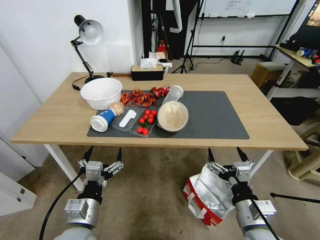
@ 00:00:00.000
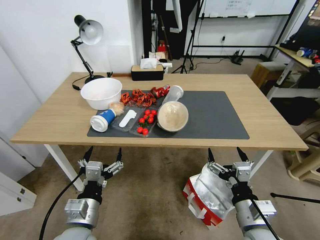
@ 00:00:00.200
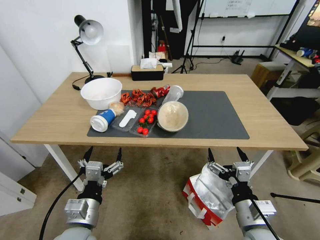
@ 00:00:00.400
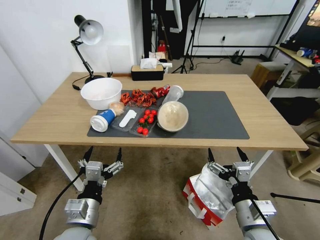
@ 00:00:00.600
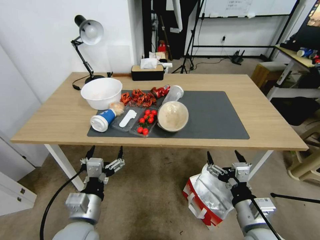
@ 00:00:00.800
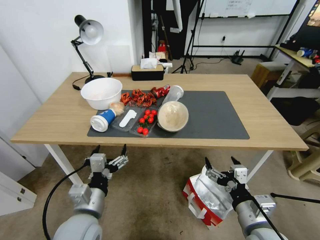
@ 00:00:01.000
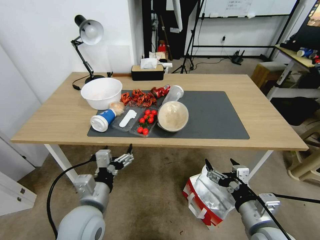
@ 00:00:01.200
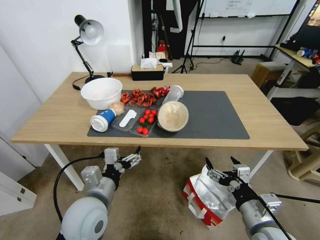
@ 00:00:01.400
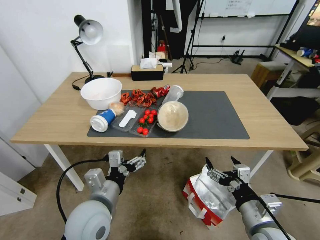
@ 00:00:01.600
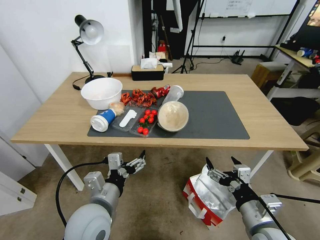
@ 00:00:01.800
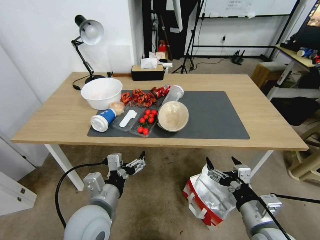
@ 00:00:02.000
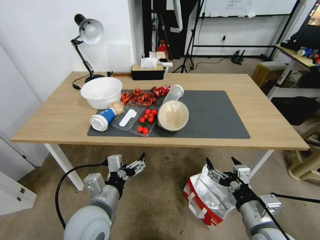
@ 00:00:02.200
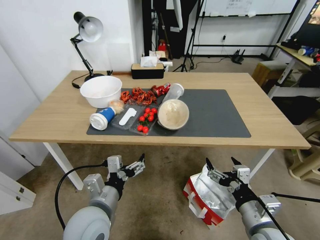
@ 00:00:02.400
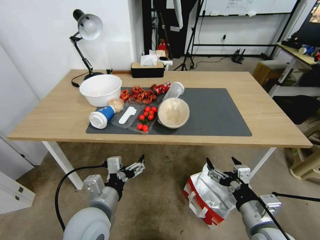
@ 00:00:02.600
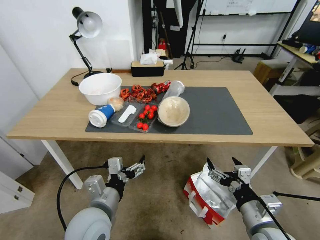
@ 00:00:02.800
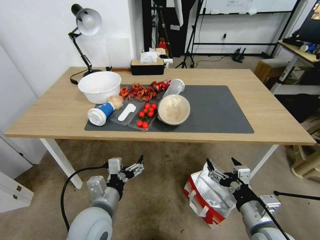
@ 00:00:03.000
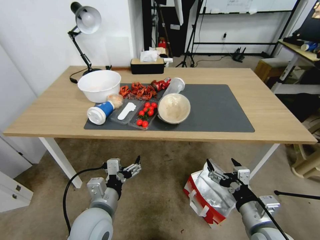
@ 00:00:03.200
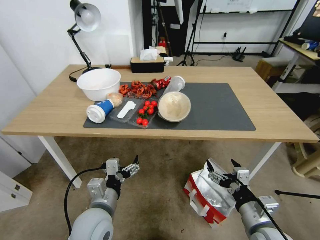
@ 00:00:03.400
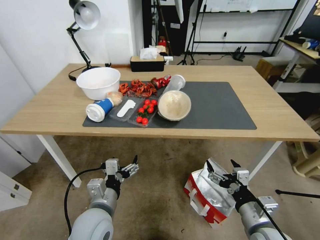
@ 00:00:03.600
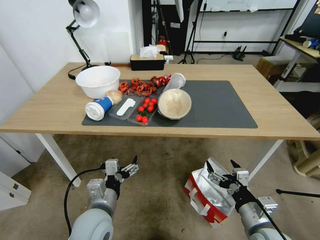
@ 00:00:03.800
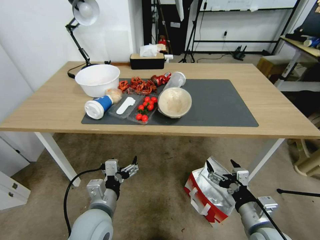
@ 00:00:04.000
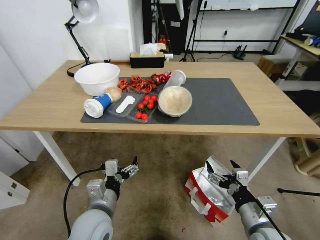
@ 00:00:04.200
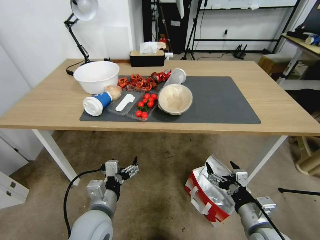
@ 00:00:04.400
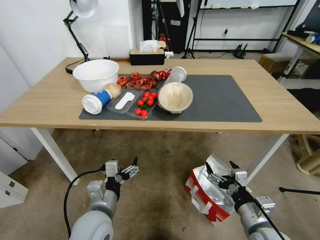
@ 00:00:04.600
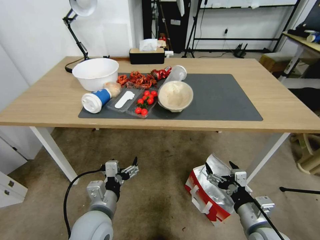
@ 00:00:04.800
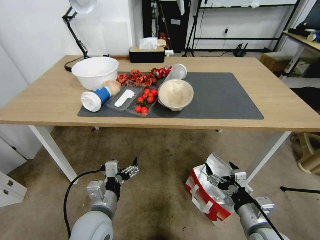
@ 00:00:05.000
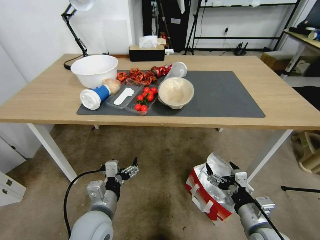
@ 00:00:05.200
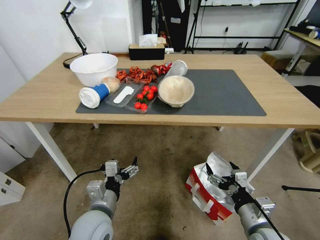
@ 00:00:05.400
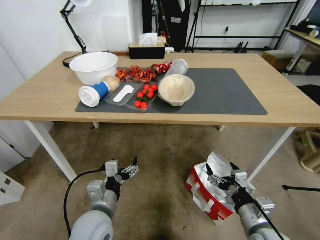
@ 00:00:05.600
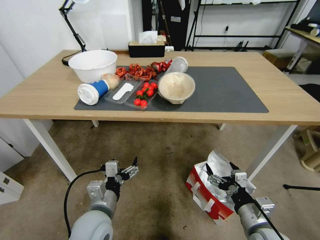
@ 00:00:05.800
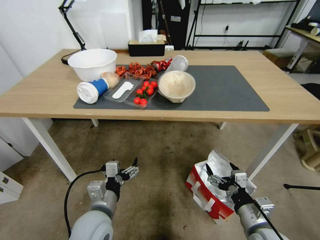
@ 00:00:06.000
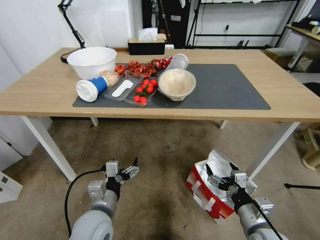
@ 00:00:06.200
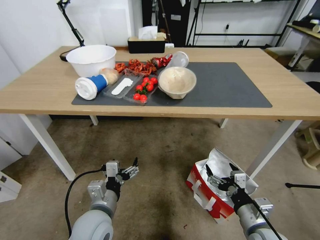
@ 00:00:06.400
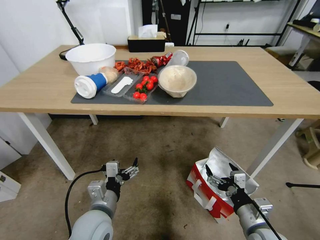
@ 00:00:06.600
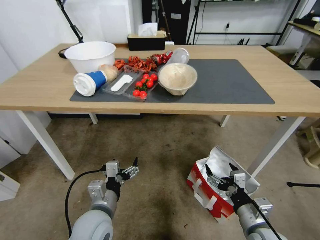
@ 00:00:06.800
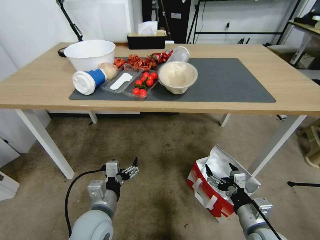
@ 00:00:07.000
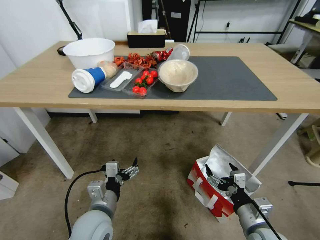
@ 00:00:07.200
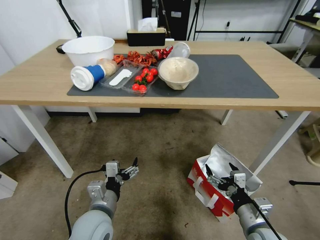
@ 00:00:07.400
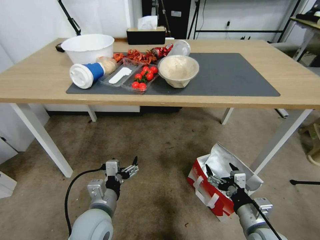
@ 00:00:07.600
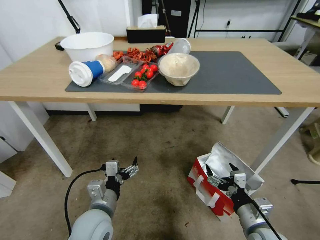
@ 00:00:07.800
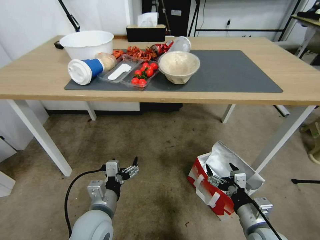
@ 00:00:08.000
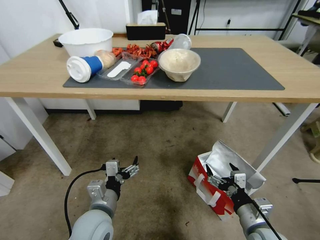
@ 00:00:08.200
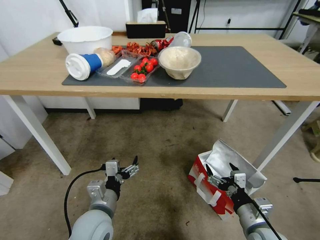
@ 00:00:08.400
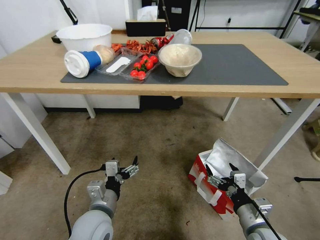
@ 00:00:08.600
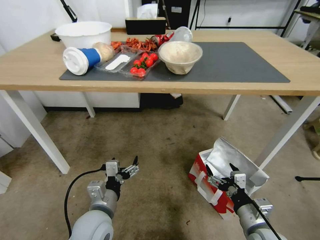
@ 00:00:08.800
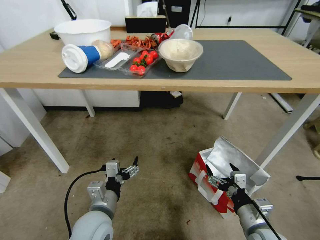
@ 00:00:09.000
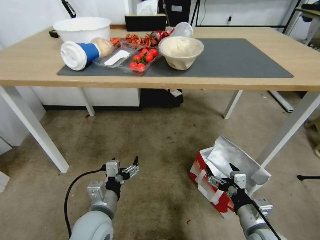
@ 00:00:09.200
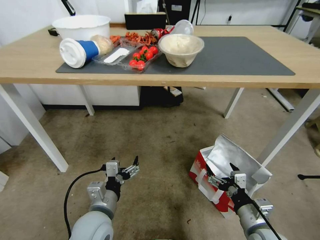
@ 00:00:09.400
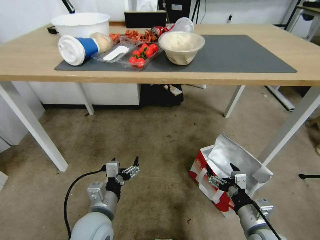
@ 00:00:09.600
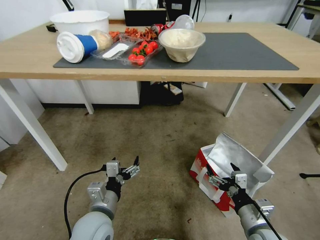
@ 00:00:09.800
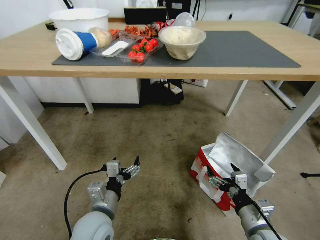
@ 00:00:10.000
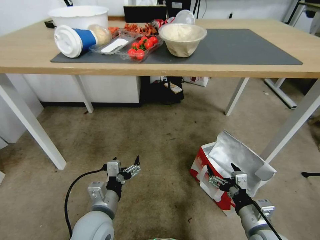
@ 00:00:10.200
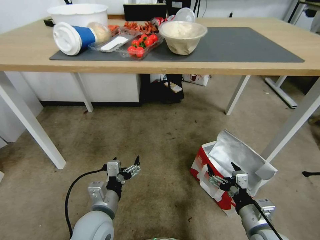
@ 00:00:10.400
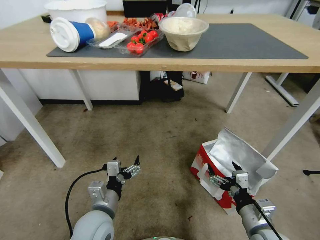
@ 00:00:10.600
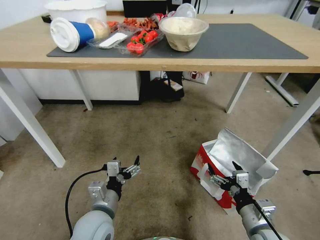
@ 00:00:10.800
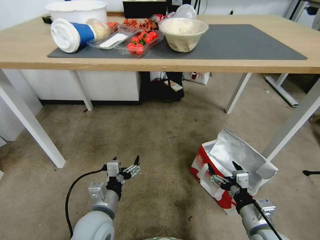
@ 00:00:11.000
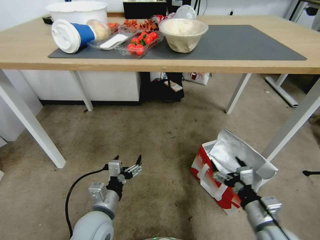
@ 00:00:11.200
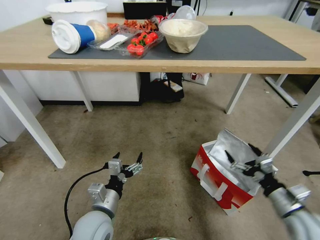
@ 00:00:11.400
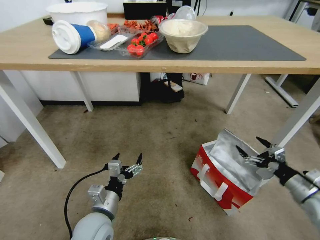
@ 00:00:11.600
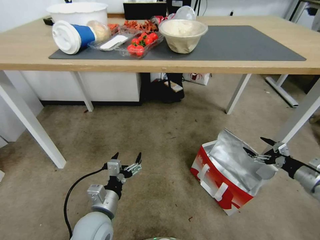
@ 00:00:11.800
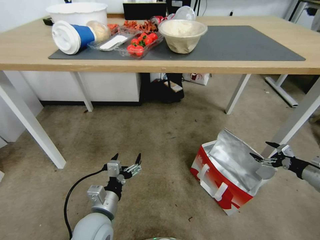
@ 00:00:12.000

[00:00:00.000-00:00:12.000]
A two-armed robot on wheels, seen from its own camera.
Task of the whole recording: Pick up the food delivery bag from the floor and place it on the table.
00:00:10.400 to 00:00:12.000: The right gripper shifts roughly 35 cm to the right and forward.

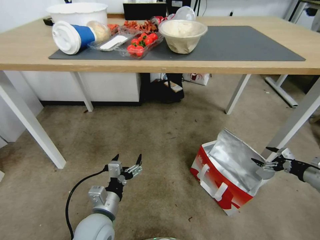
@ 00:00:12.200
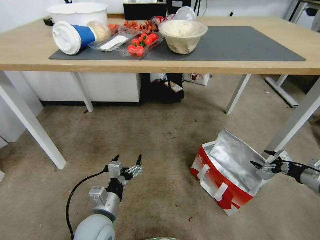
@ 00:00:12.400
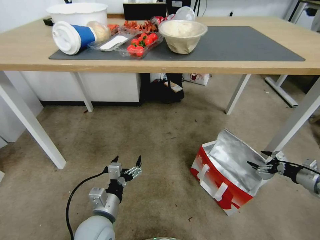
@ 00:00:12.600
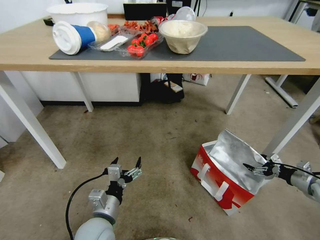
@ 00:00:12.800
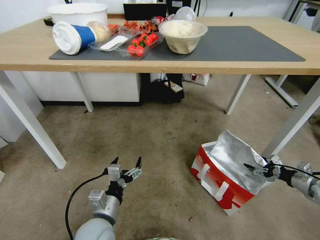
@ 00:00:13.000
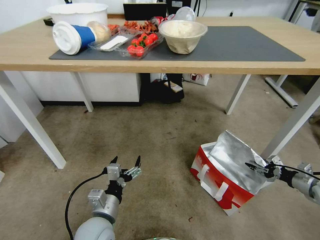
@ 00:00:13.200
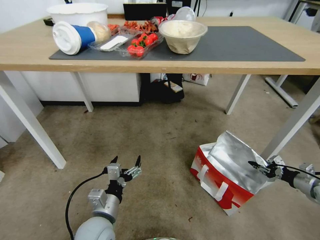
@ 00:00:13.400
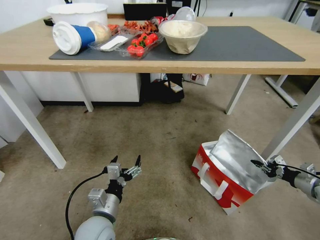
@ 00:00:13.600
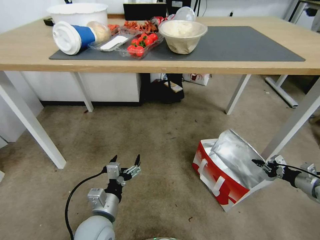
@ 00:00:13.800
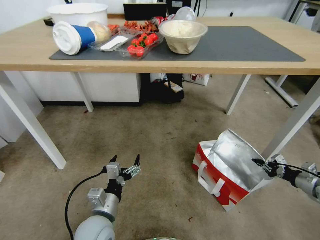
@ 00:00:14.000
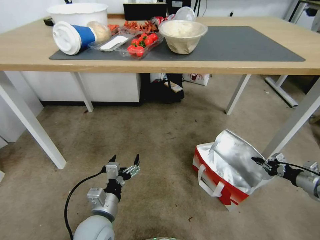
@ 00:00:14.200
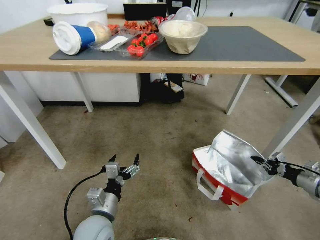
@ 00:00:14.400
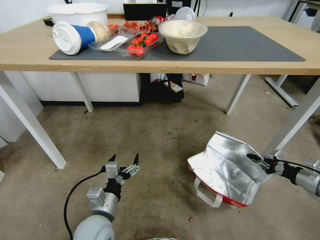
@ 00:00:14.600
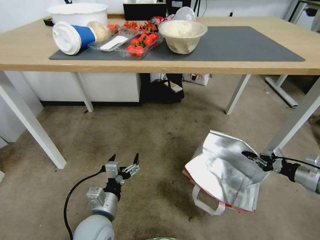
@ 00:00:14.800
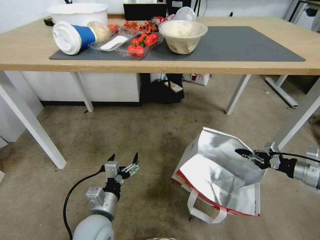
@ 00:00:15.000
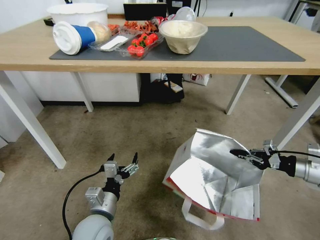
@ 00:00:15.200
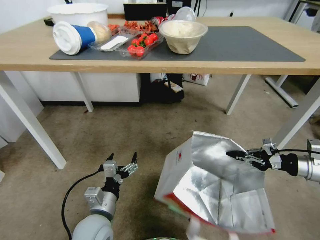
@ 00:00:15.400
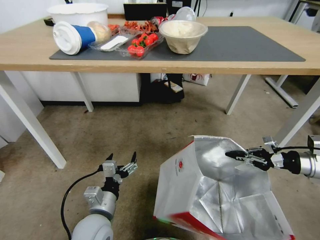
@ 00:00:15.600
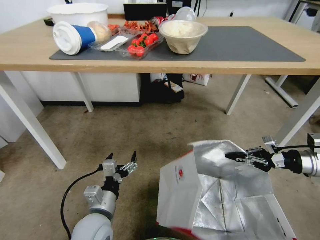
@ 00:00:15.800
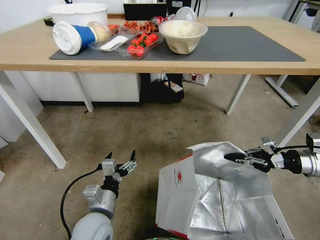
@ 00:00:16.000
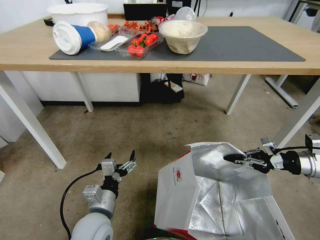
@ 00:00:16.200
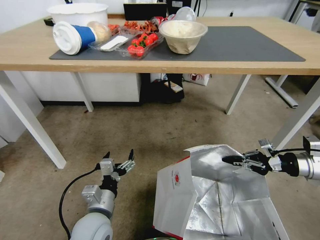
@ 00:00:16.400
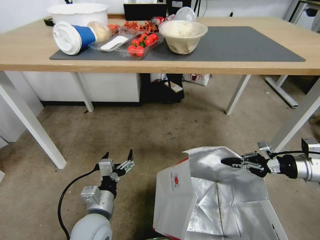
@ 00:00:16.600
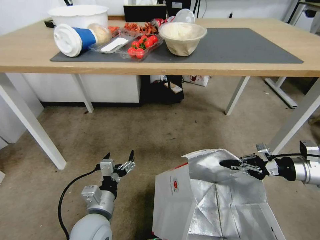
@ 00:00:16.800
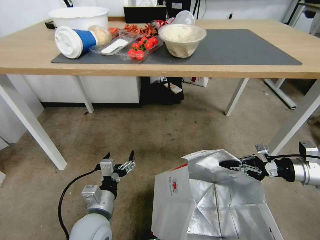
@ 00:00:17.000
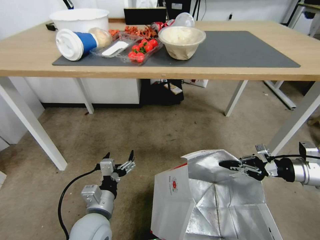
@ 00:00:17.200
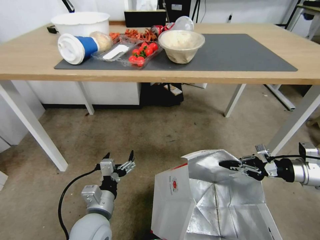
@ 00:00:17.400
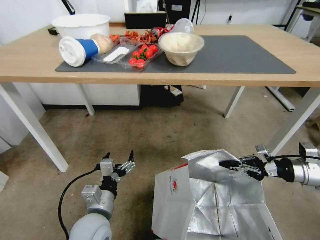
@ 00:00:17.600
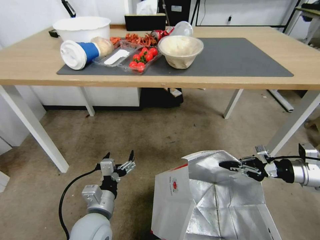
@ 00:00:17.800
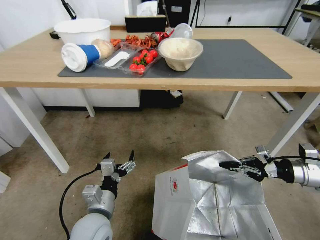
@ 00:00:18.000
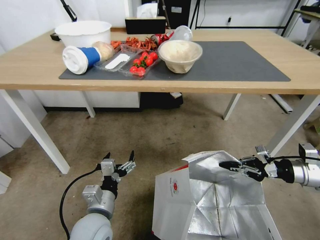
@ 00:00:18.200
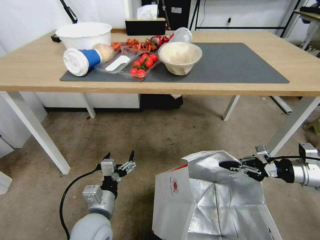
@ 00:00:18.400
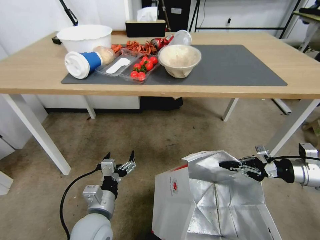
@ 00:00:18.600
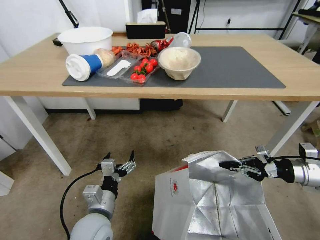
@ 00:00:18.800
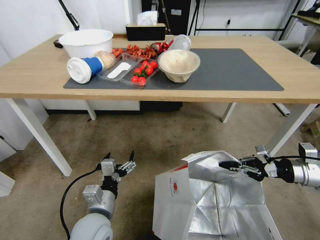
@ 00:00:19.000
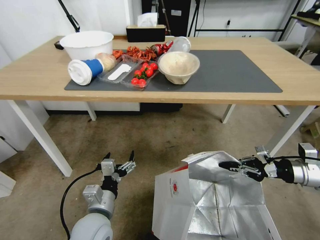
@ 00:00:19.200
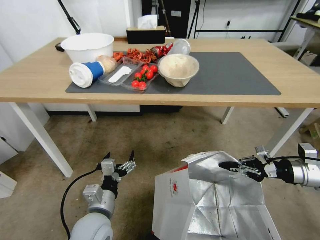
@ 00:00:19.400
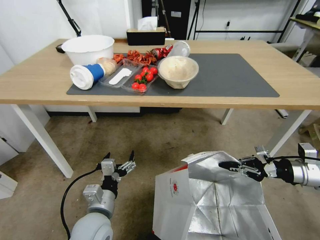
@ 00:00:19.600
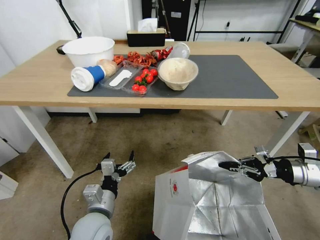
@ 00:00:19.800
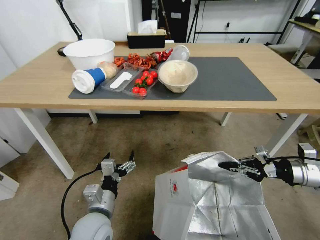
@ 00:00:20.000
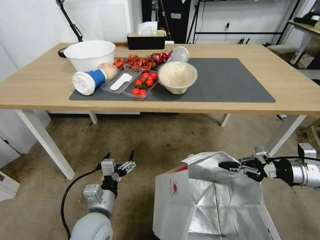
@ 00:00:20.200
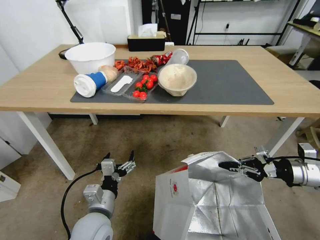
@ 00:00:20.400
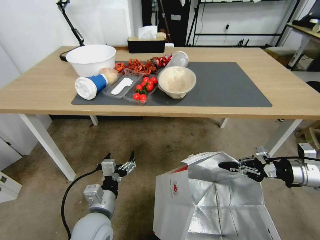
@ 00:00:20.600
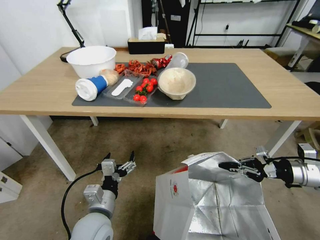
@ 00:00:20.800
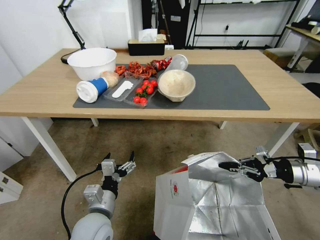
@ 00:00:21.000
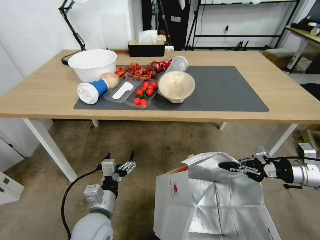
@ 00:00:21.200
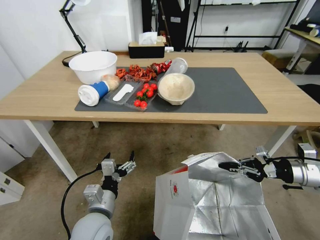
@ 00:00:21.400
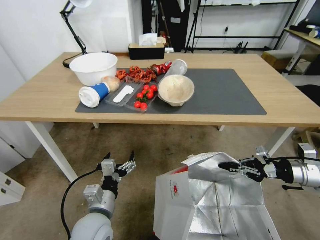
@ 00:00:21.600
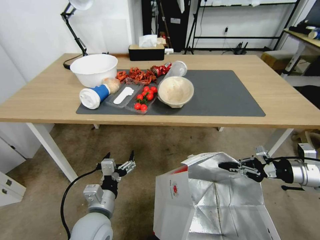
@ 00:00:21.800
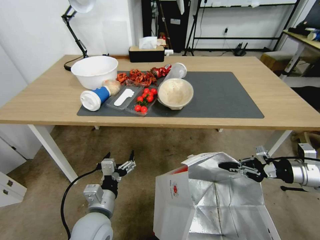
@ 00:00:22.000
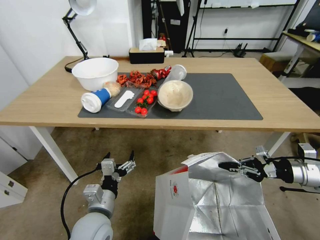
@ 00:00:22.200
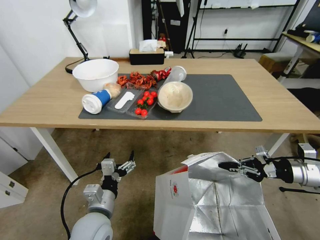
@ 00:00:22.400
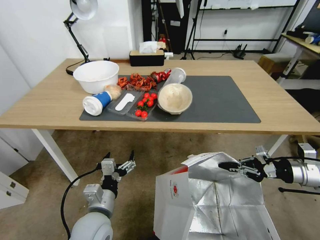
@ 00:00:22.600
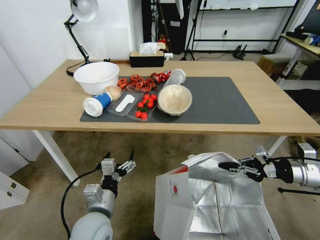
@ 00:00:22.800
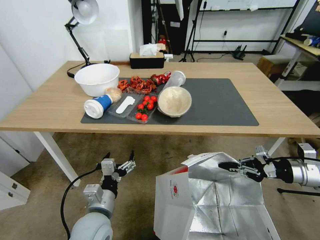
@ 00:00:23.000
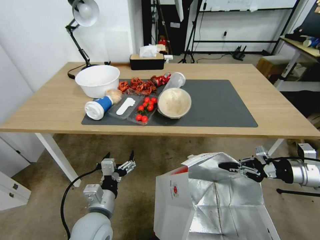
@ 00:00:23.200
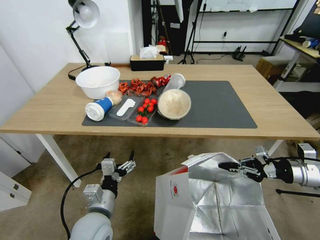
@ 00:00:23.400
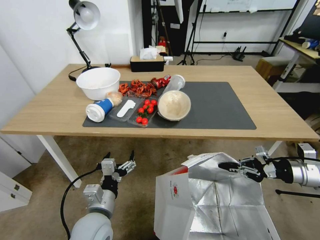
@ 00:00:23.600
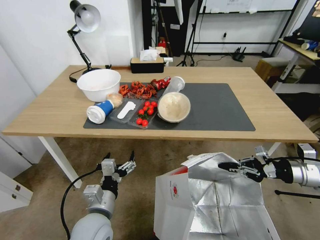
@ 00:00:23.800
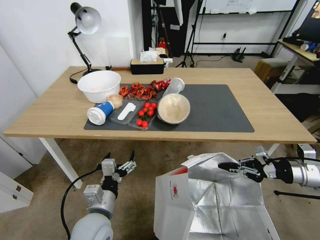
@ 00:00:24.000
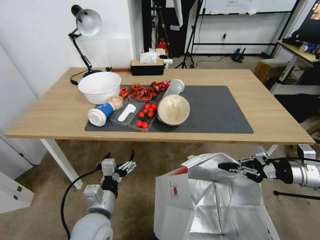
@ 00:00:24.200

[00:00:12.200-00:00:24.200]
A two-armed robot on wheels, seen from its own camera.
Task of the whole recording: Pick up the food delivery bag from the floor and place it on the table.
00:00:12.200 to 00:00:13.800: The right gripper closes.
00:00:13.800 to 00:00:15.200: The right gripper goes about 15 cm upward and to the left.
00:00:15.200 to 00:00:16.600: The right gripper shifts by about 5 cm.
